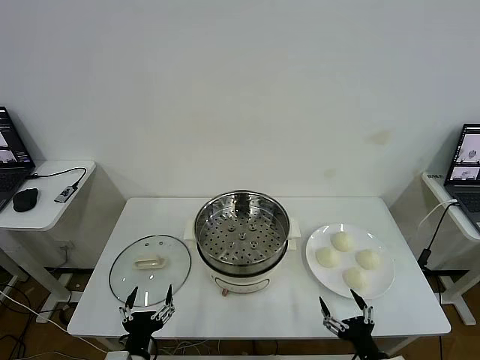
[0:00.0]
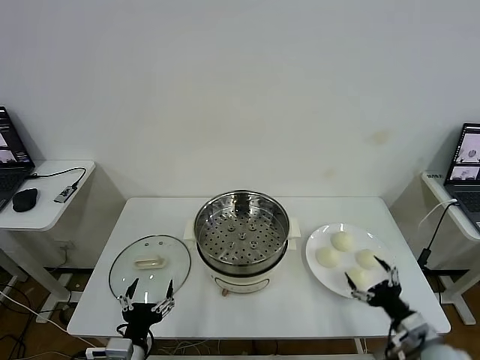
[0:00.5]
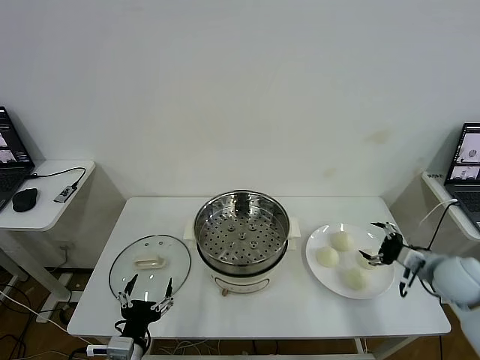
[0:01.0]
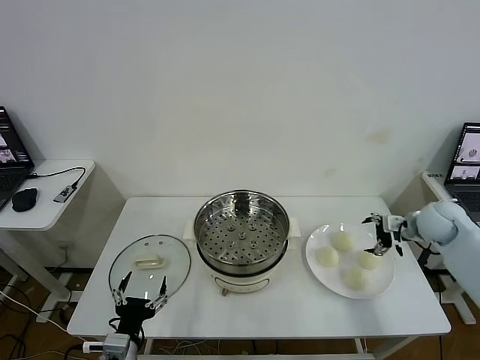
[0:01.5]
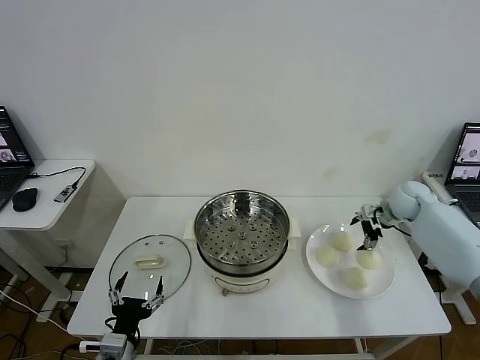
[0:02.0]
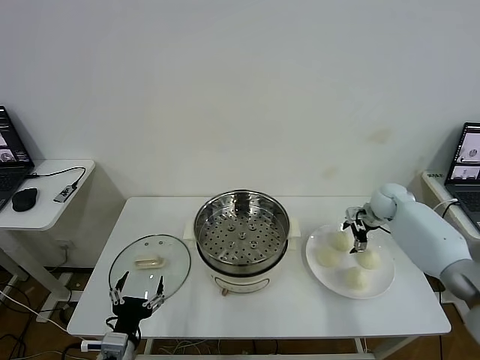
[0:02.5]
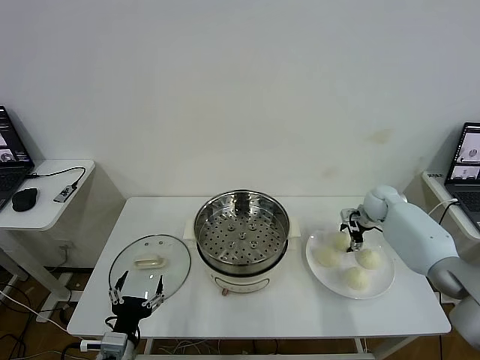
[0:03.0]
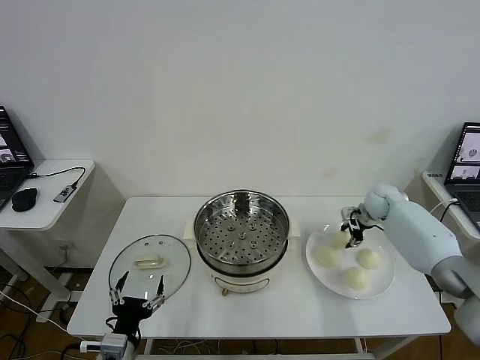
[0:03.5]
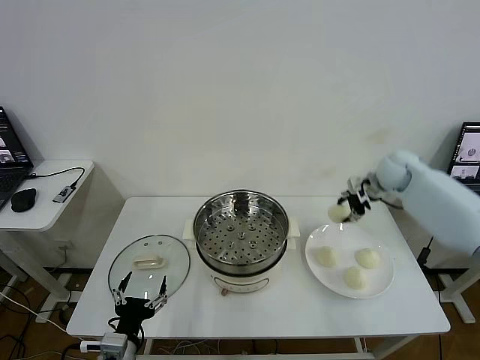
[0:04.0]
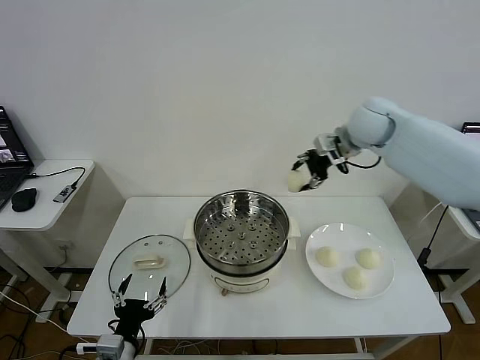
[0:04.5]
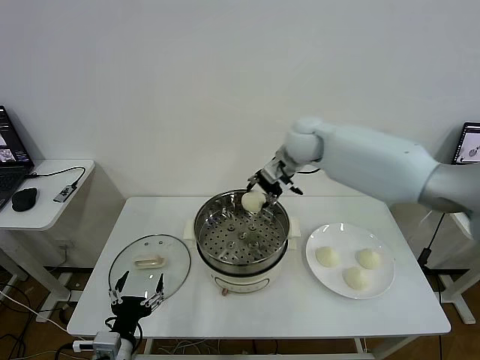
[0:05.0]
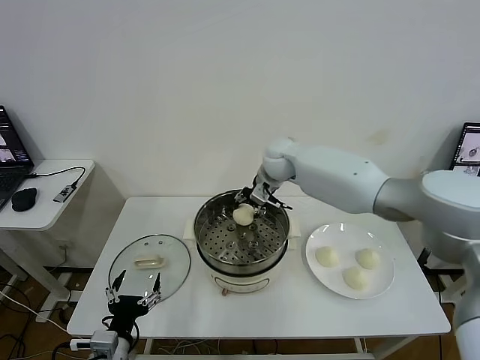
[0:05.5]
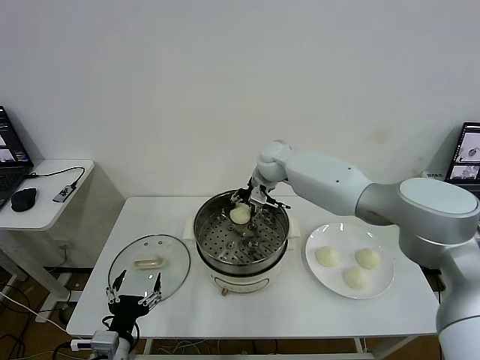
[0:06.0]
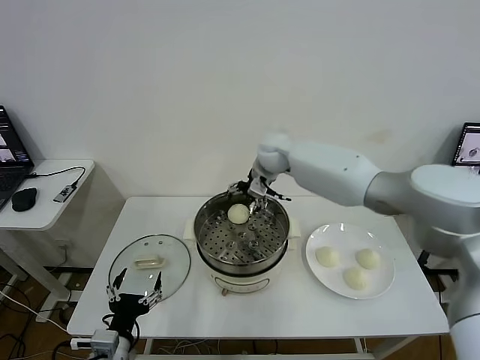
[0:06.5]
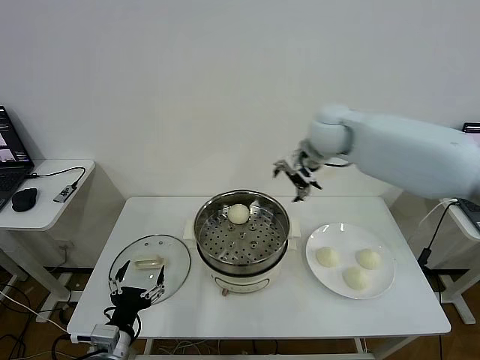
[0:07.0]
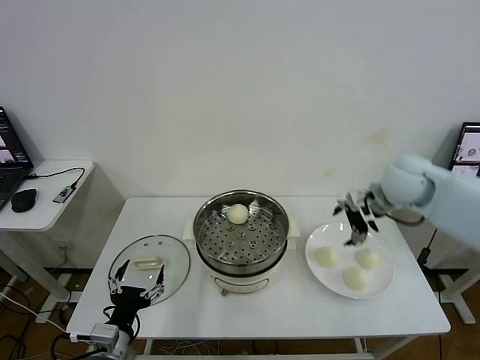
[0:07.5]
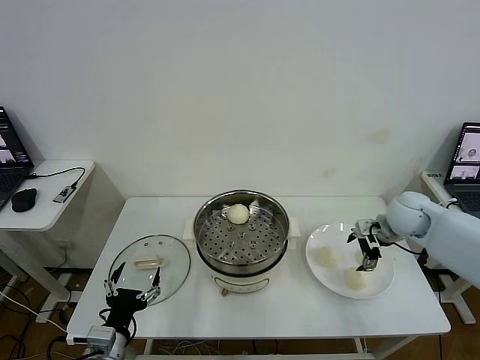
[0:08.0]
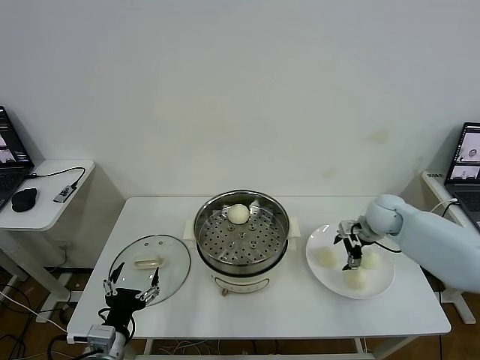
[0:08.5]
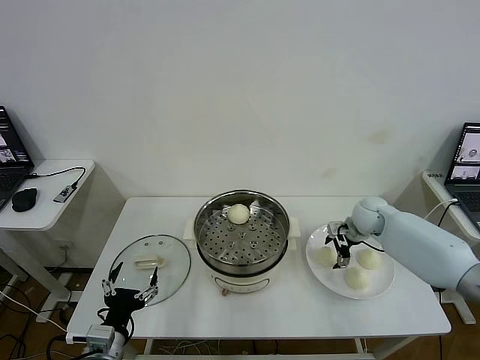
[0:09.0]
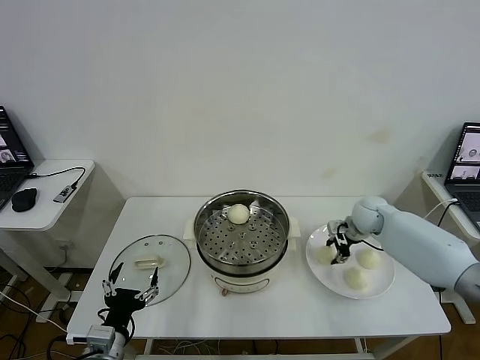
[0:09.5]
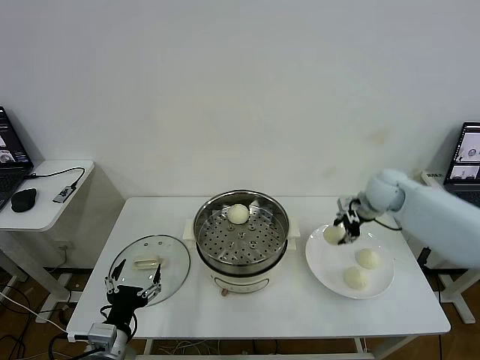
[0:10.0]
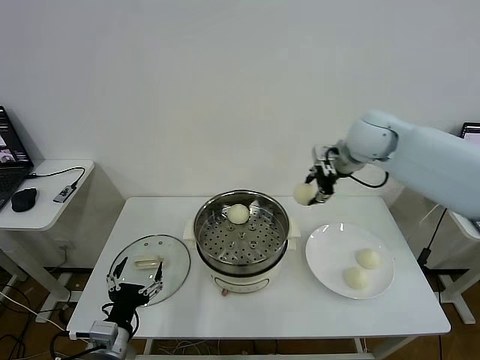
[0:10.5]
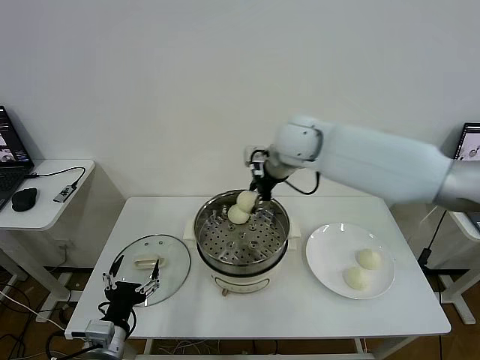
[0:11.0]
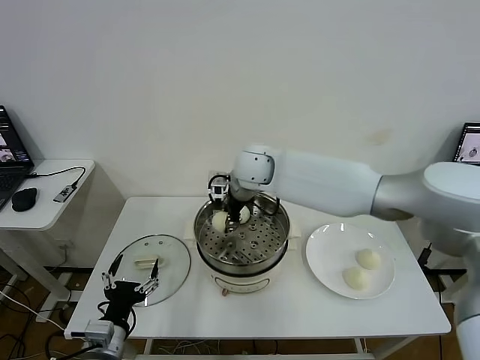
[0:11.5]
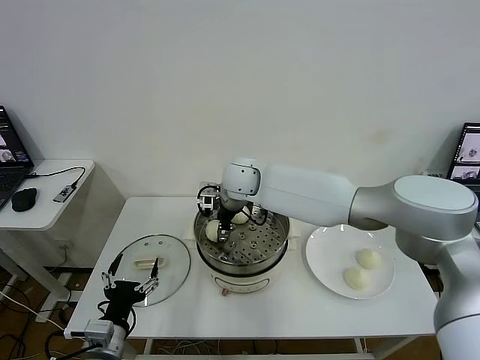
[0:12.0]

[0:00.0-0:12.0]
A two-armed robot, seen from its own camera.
Task of the whole recording: take steamed baozi put them in steamer then cover it.
Step, 0:00.0 to 0:03.0: Grasp the baozi in the plate with right gripper.
Step, 0:03.5 to 0:06.0: Place the baozi on the steamer with right gripper.
Step, 0:06.5 to 0:09.0: Grasp the baozi in the plate with right gripper.
0:02.0 to 0:04.0: The right gripper heads upward and to the left, covering approximately 15 cm, and closes its fingers.
0:04.0 to 0:06.0: The right gripper moves to the left, approximately 30 cm.
0:06.0 to 0:08.0: The right gripper travels to the right and backward by some 35 cm, and opens up.
0:08.0 to 0:10.0: The right gripper moves upward and forward, some 10 cm, and closes up.
0:10.0 to 0:12.0: The right gripper shifts roughly 35 cm to the left, and opens its fingers.

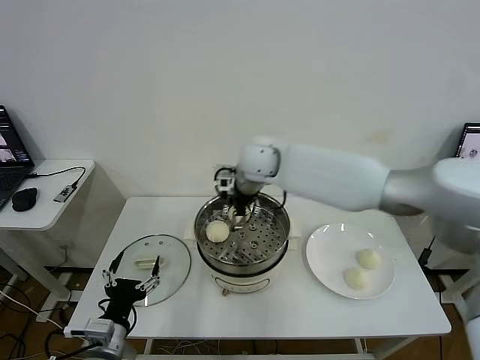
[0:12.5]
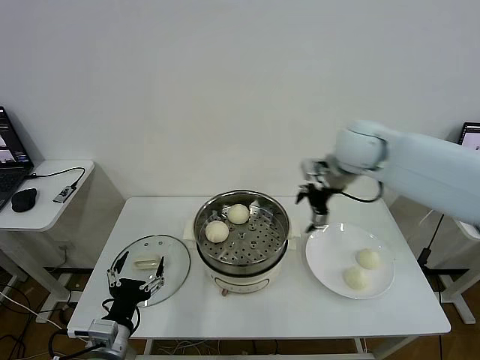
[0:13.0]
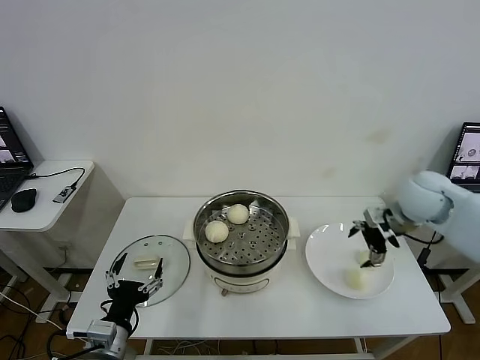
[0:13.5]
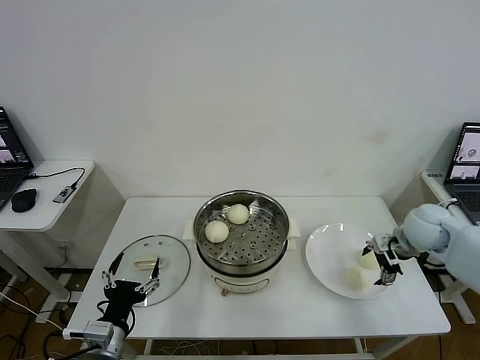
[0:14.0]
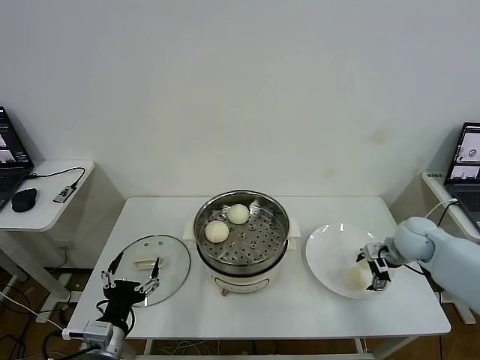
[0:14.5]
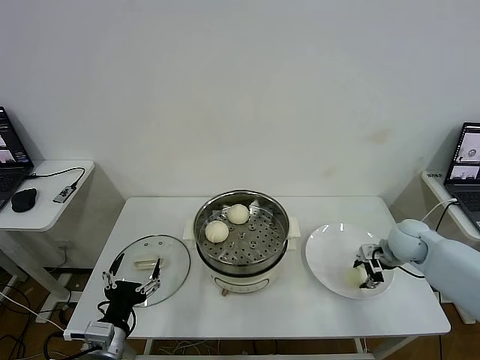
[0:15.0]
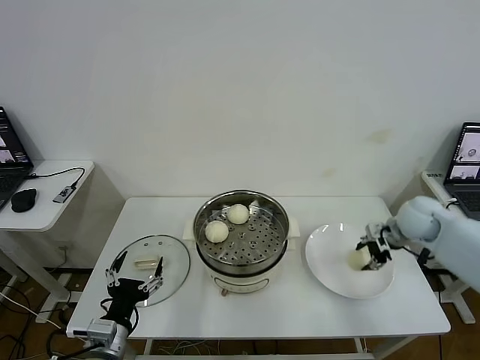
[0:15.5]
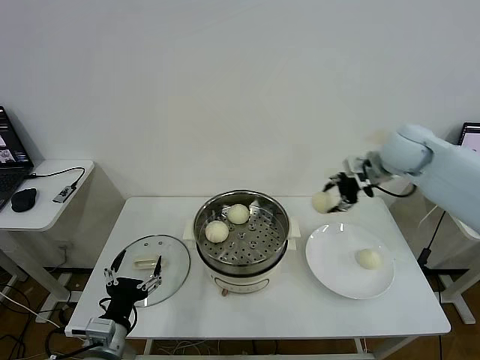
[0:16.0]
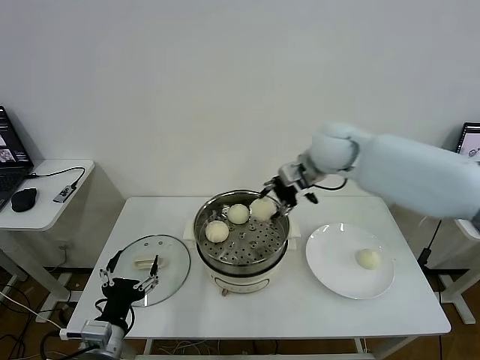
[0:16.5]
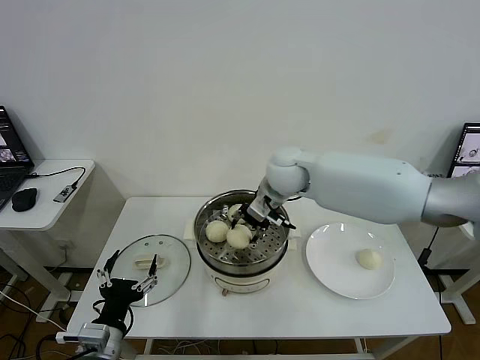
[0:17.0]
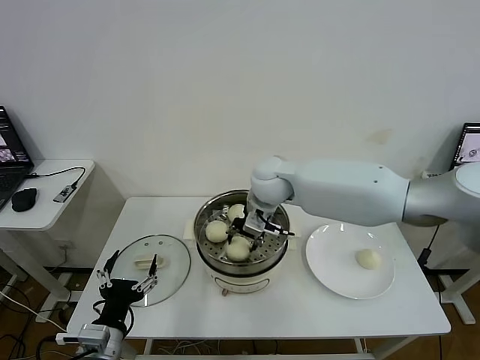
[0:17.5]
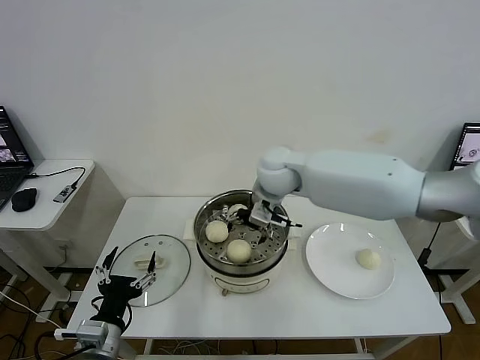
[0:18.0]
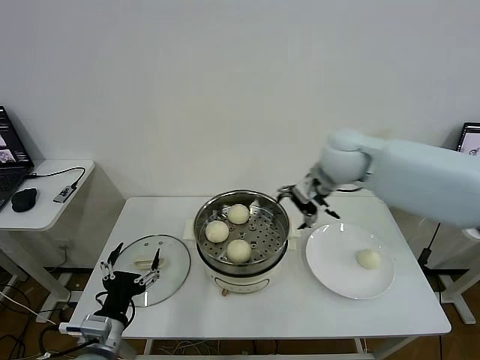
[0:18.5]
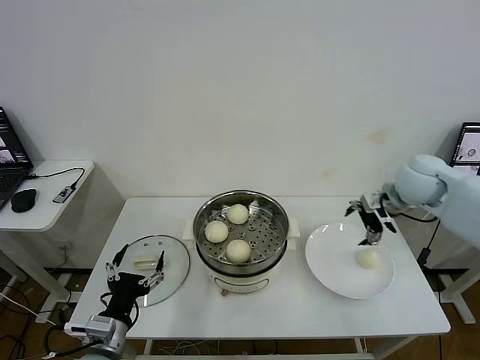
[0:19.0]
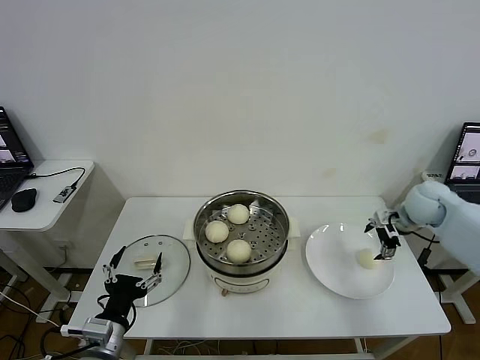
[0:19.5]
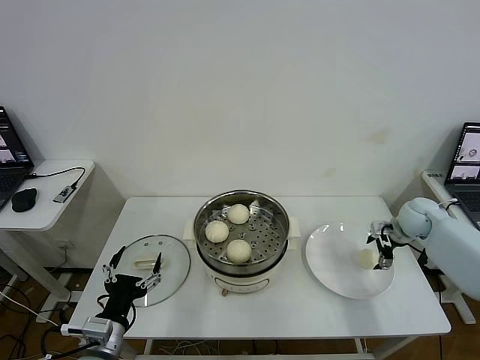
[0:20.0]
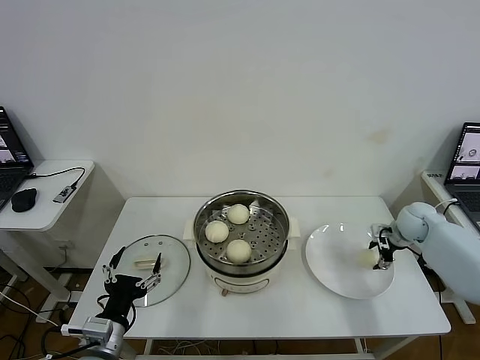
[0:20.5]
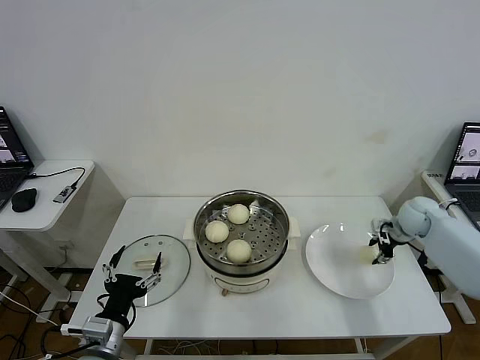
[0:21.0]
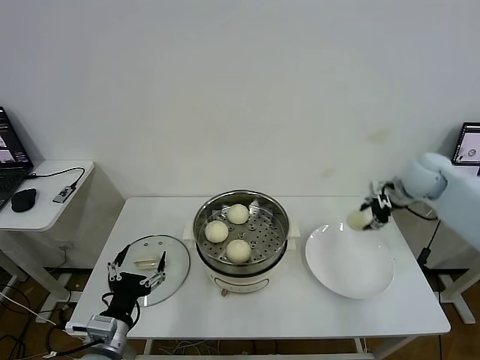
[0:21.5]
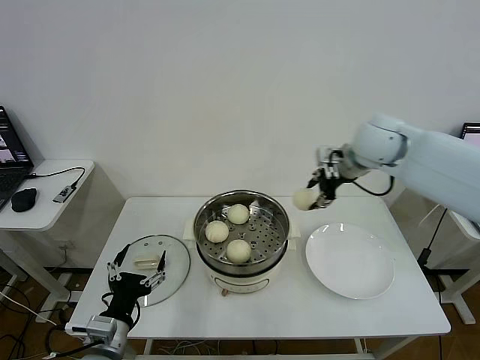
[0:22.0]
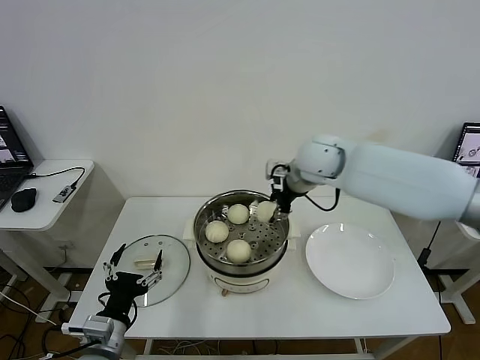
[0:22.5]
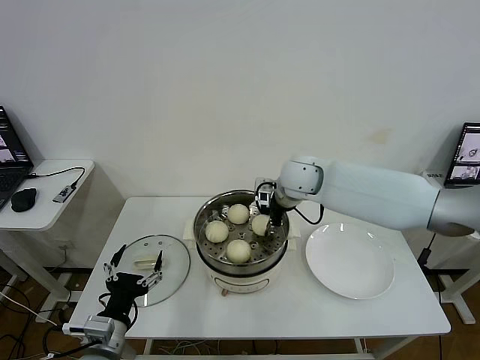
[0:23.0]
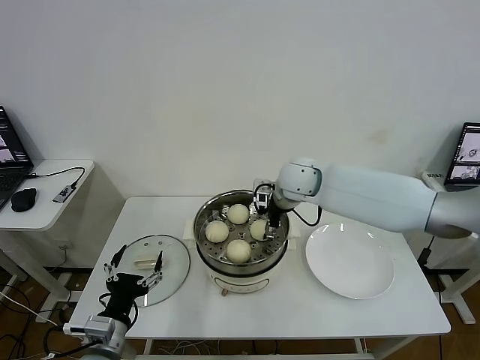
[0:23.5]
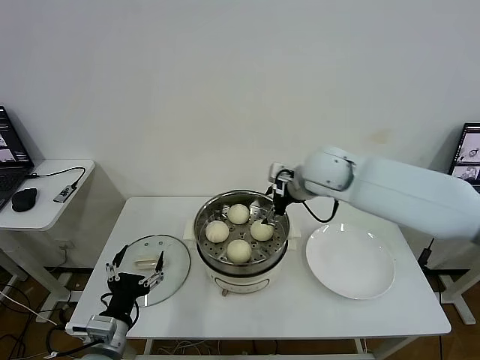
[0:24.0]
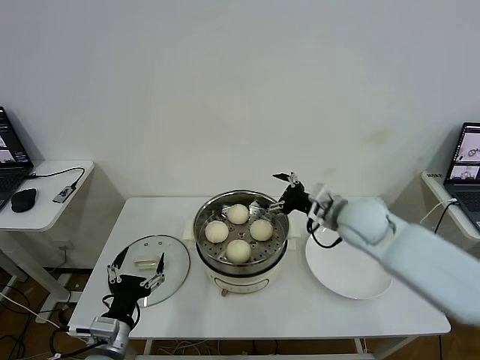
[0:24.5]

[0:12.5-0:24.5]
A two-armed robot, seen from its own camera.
Task of the whole recording: take steamed baozi put them in steamer then cover it.
Step, 0:12.5 to 0:15.0: Grasp the baozi in the plate with right gripper.
Step, 0:15.5 to 0:17.5: Place the baozi on the steamer with right gripper.
Step, 0:18.0 to 0:20.5: Grasp the baozi in the plate with right gripper.
Step, 0:21.0 to 0:23.5: Place the baozi on the steamer with right gripper.
0:12.5 to 0:14.5: The right gripper heads to the right and downward, covering roughly 40 cm.
0:14.5 to 0:16.5: The right gripper shifts some 30 cm to the left and upward, and closes up.
0:16.5 to 0:18.5: The right gripper travels to the left and back again, some 10 cm each way, and opens its fingers.
0:18.5 to 0:20.5: The right gripper travels to the right and downward by roughly 30 cm, and closes.
0:20.5 to 0:22.5: The right gripper is displaced to the left and upward by some 35 cm.
0:22.5 to 0:24.5: The right gripper travels backward, downward and to the right by some 15 cm, and opens.

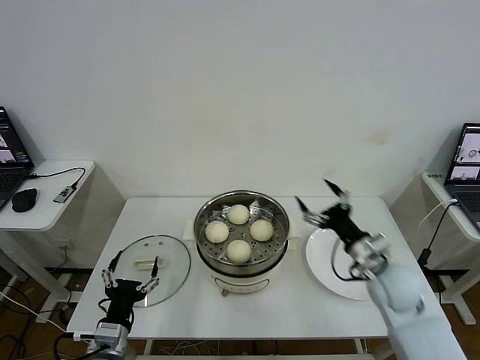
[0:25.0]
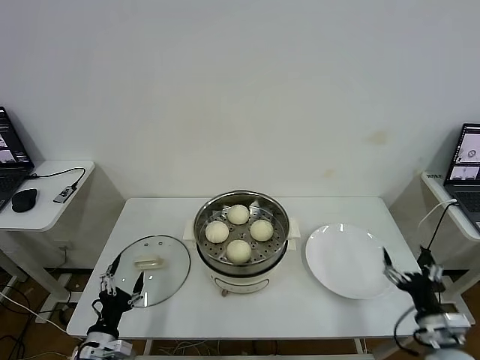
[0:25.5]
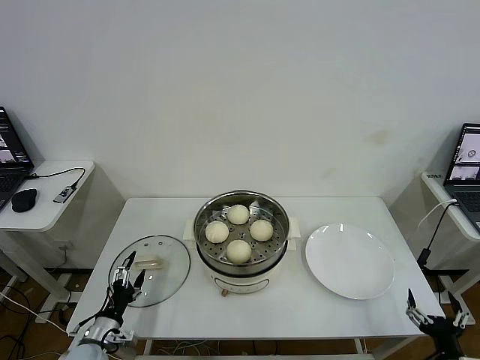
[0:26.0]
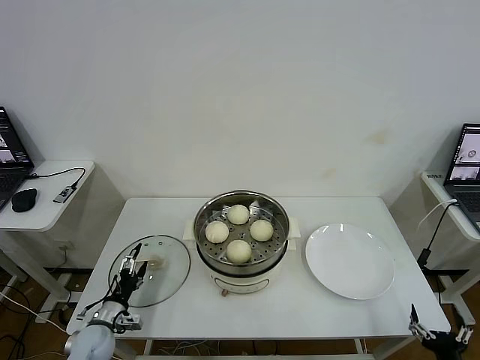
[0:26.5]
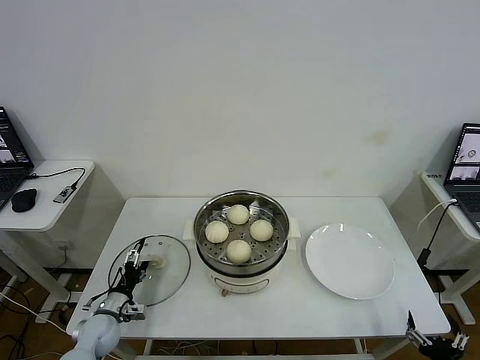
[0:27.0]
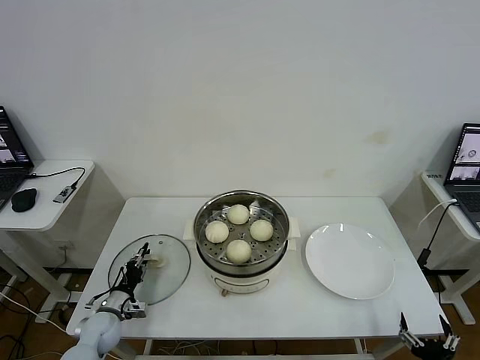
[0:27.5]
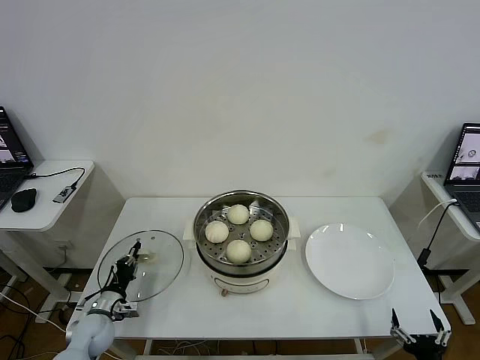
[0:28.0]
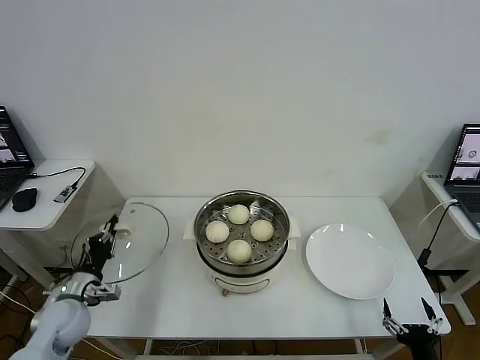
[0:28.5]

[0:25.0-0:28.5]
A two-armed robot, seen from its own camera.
Task of the whole recording: take steamed baozi put them in steamer then cover it.
Step, 0:25.0 to 0:27.5: Grasp the pot lid with left gripper.
0:25.0 to 0:27.0: The left gripper shifts about 20 cm downward, forward and to the left, while the right gripper is displaced backward, downward and to the right by some 30 cm.
0:27.0 to 0:28.5: The left gripper goes roughly 10 cm upward, and closes.
